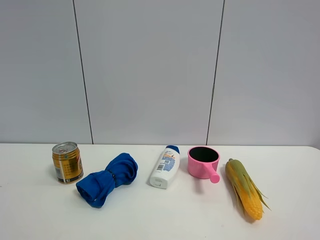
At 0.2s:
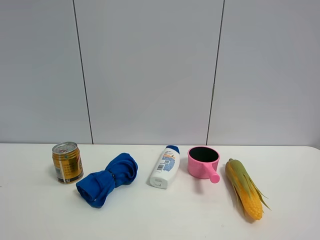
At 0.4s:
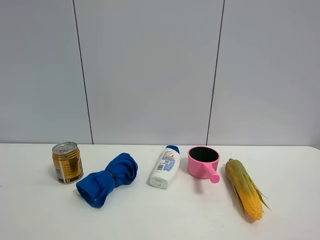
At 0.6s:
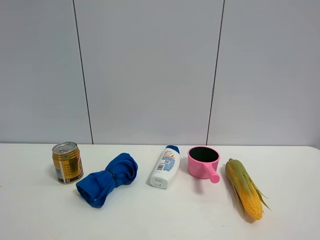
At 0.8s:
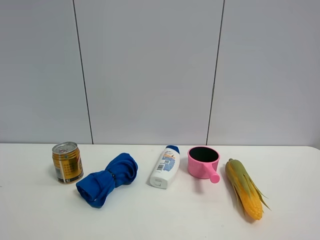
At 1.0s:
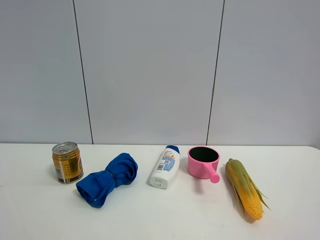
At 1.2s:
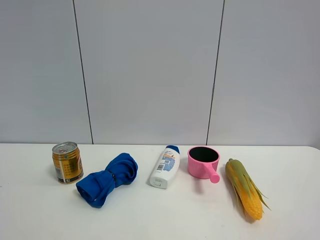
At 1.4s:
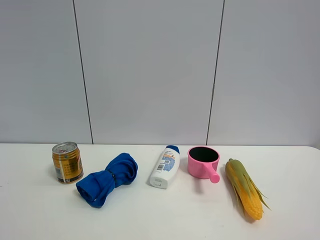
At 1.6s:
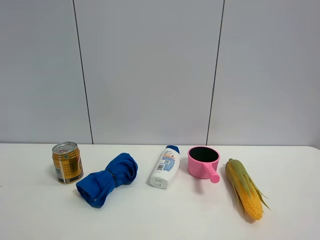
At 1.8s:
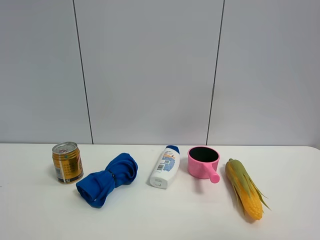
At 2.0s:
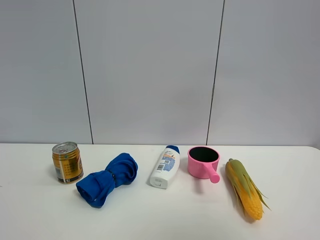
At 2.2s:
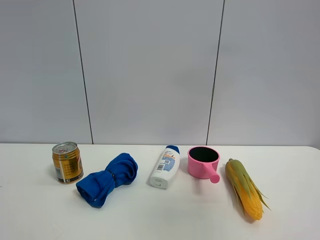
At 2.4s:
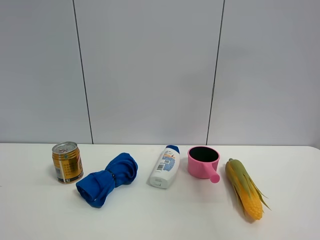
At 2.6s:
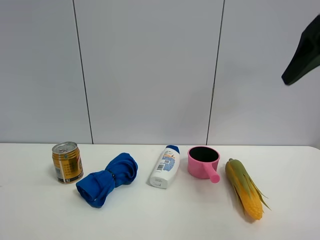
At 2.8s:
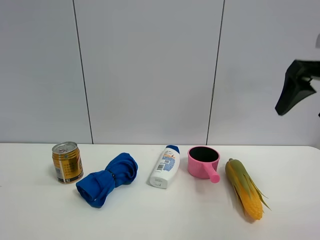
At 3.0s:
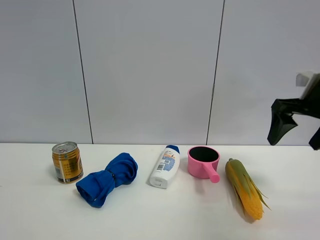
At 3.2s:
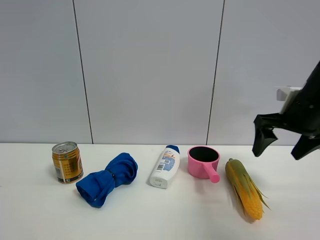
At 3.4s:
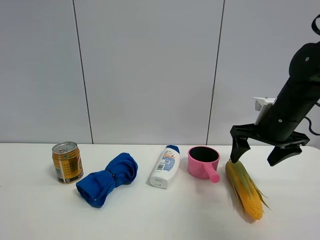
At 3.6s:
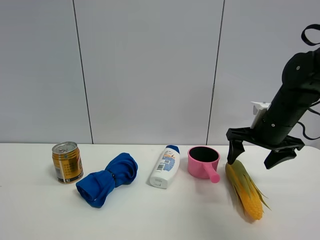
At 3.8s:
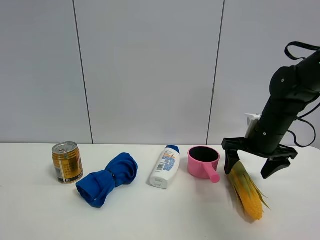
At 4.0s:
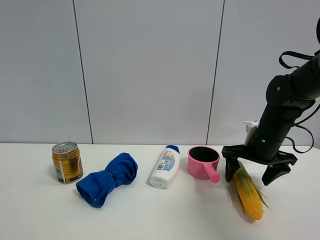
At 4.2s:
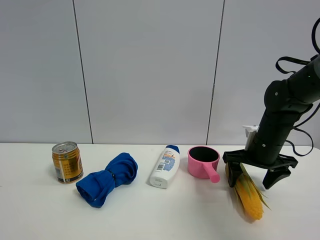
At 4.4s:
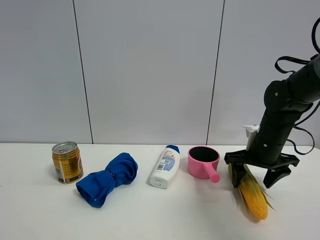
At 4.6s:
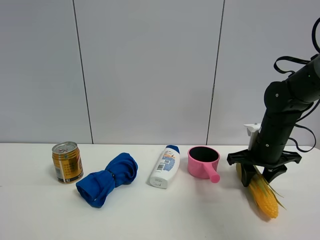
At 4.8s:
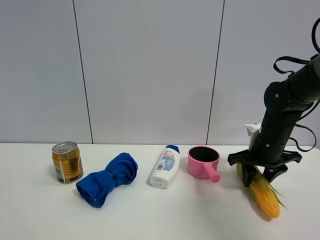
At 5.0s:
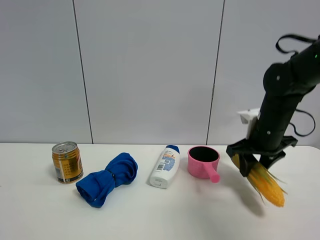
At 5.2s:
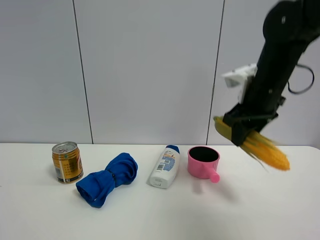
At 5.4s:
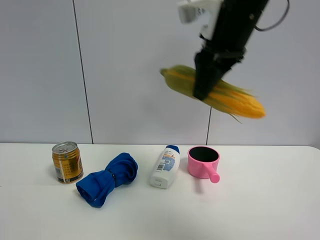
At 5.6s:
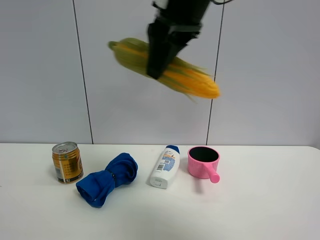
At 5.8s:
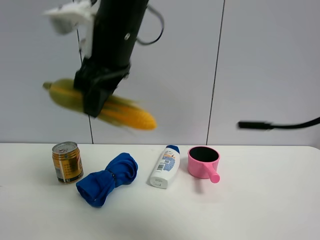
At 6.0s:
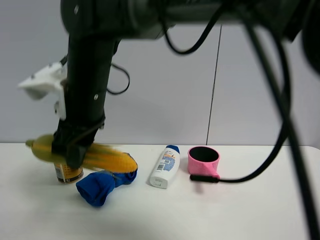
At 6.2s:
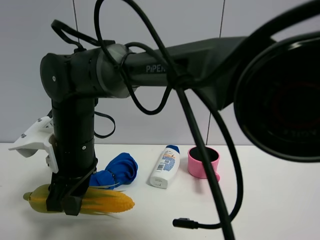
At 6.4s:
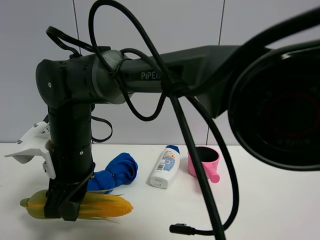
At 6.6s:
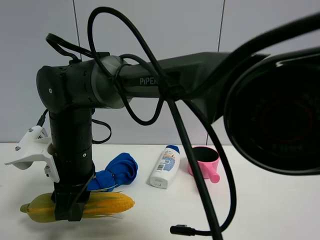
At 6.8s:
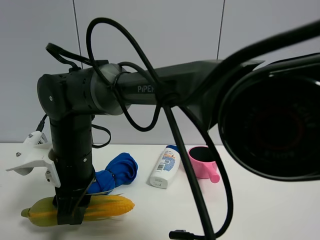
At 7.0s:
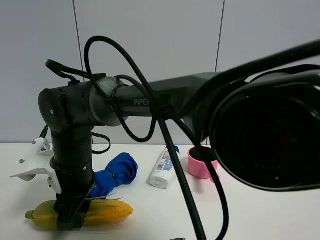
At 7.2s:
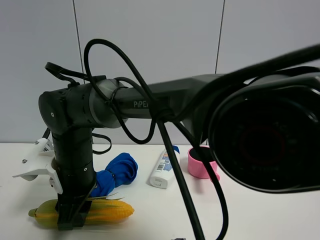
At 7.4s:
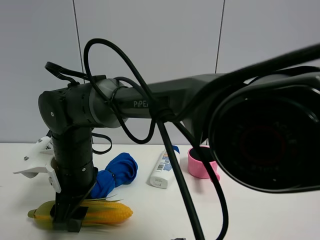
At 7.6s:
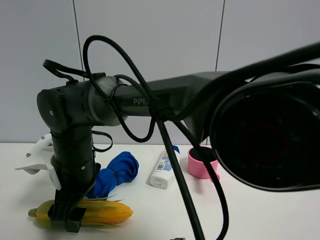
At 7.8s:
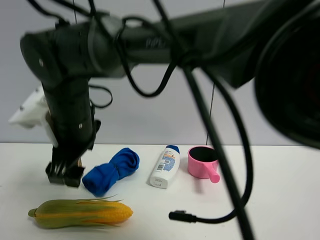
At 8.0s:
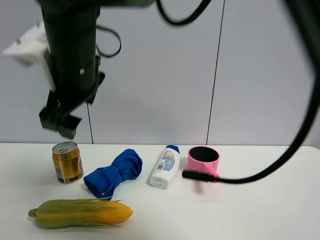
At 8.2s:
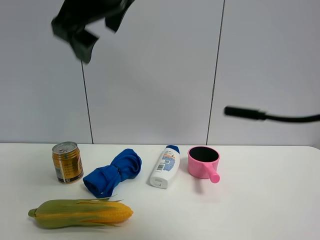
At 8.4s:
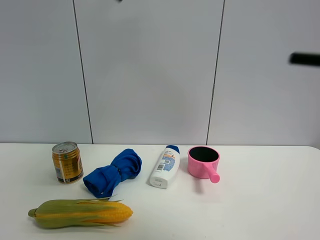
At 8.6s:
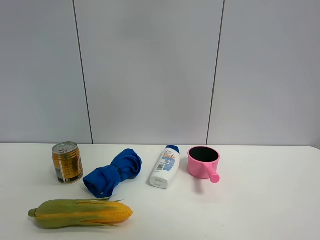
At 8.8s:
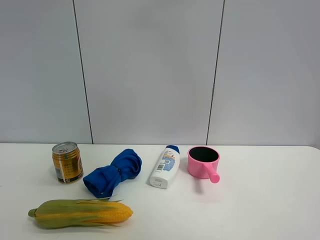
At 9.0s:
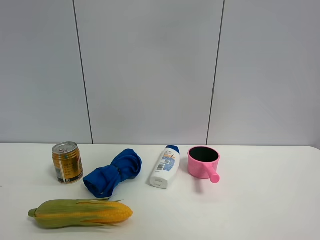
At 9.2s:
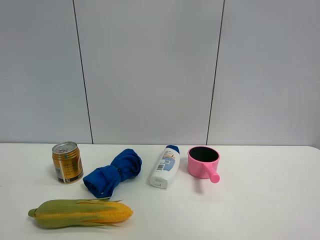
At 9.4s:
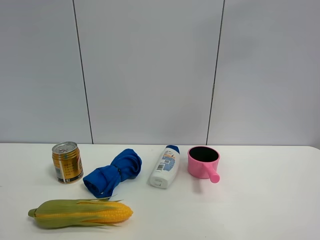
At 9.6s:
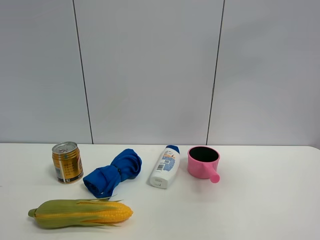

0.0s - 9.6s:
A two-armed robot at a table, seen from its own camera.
Task of the whole recording: the gripper move the object.
Step, 0.0s - 4.6s: Grasp the corn with the right gripper.
Step, 4.8s - 7.6s: Place the corn on the table with the right gripper.
1.6s - 3.2s: The right gripper goes some 35 cm forward.
3.2s - 4.8s: The right gripper goes approximately 10 cm downward, and closes.
4.8s - 6.4s: The right gripper shifts about 40 cm to the left.
6.4s - 8.0s: The right gripper shifts some 10 cm upward, and opens up.
8.0s - 9.6s: The right gripper travels to the right and upward by about 50 cm.

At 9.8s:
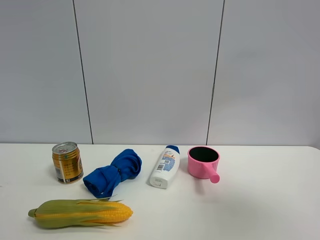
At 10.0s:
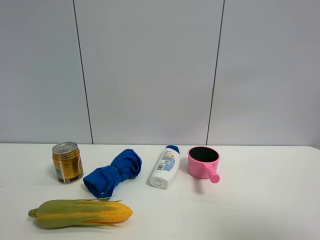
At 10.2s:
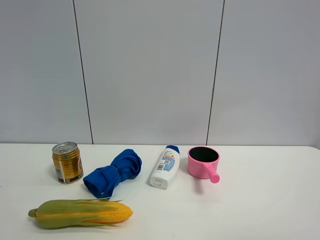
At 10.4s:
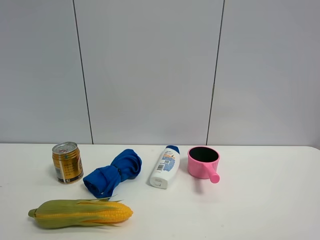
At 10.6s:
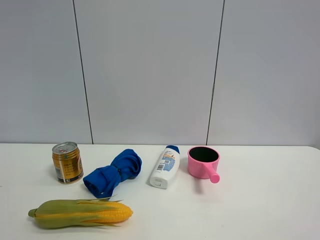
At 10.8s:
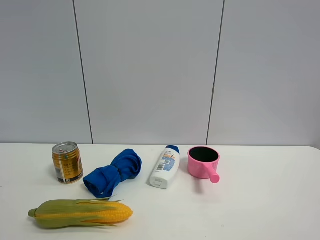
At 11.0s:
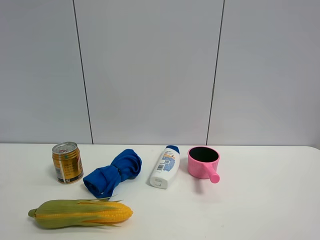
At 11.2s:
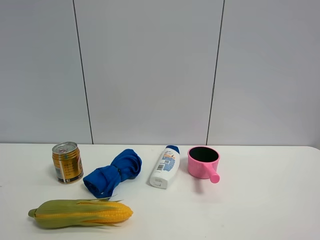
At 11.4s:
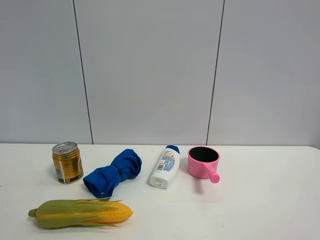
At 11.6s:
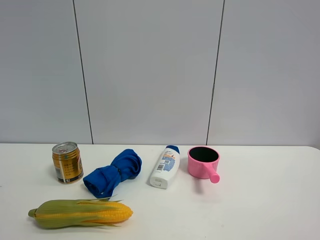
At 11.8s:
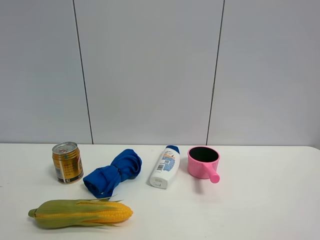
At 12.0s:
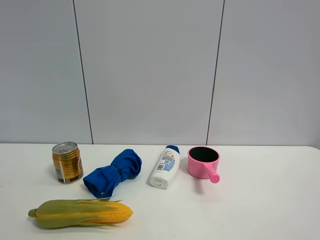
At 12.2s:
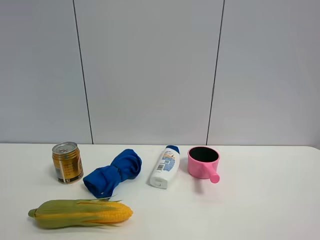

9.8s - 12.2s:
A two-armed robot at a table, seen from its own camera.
Task of the whole recording: the gripper move the object.
9.8s - 11.0s: The right gripper travels downward and backward by roughly 20 cm.
11.0s - 12.2s: Both grippers stay about where they are.

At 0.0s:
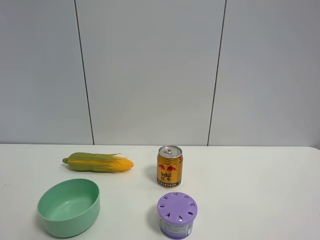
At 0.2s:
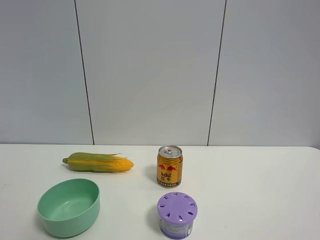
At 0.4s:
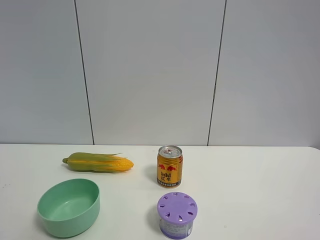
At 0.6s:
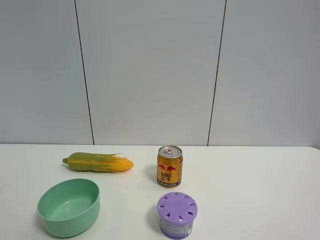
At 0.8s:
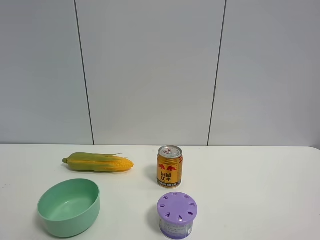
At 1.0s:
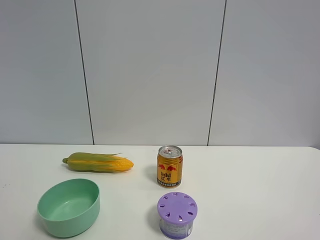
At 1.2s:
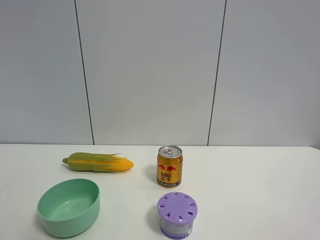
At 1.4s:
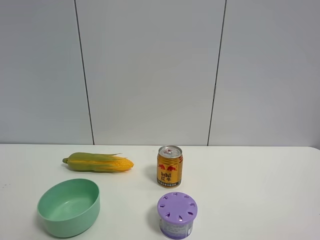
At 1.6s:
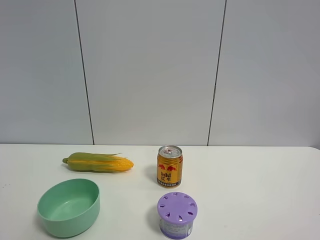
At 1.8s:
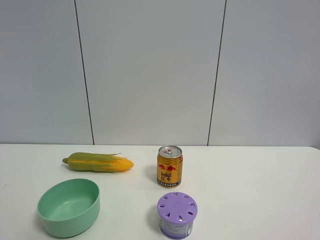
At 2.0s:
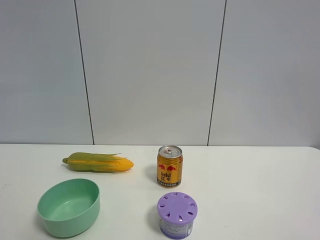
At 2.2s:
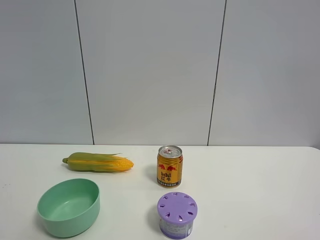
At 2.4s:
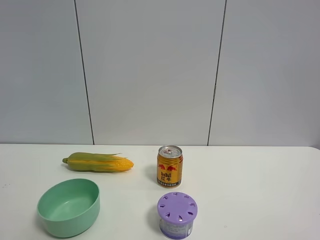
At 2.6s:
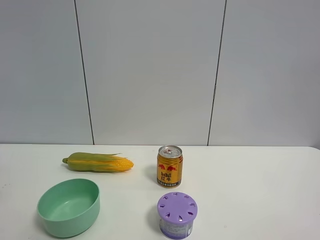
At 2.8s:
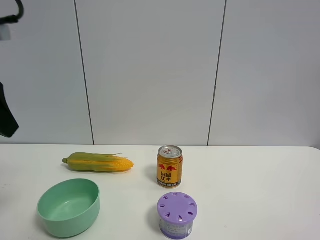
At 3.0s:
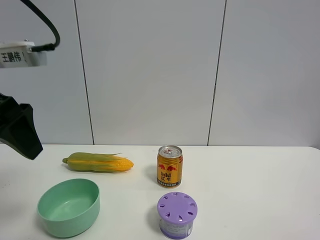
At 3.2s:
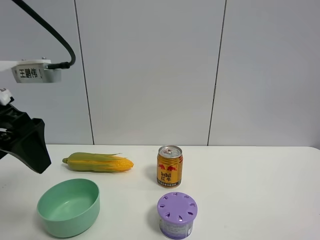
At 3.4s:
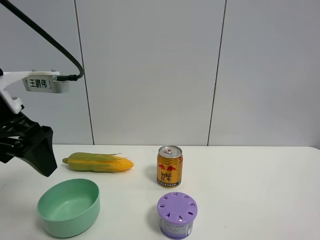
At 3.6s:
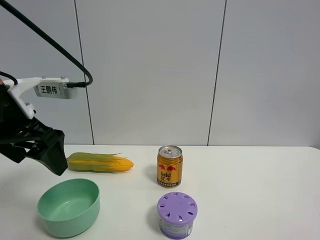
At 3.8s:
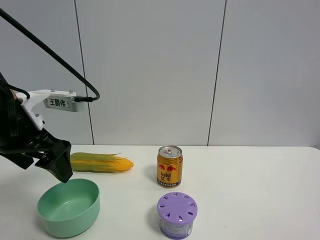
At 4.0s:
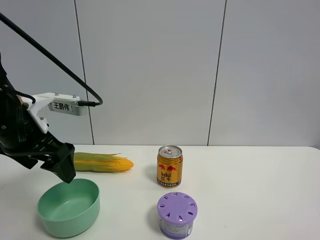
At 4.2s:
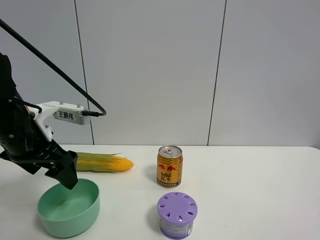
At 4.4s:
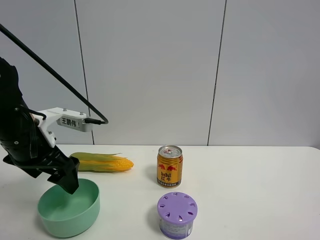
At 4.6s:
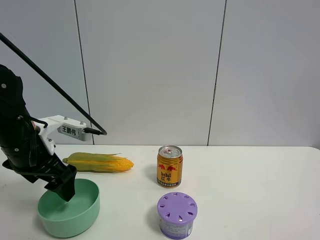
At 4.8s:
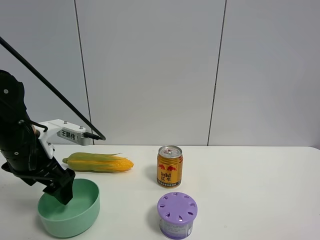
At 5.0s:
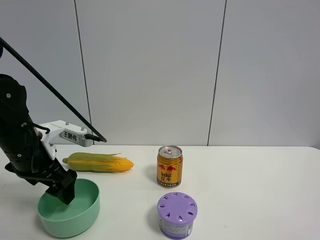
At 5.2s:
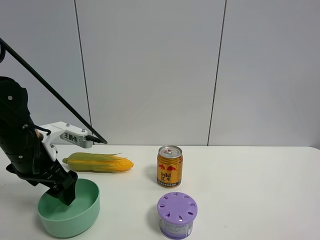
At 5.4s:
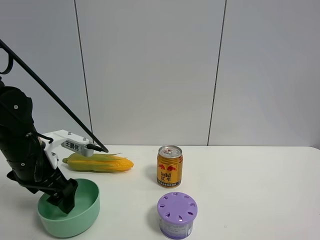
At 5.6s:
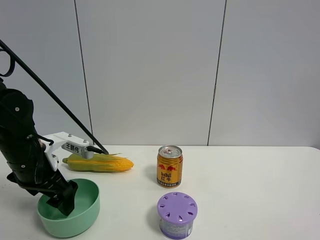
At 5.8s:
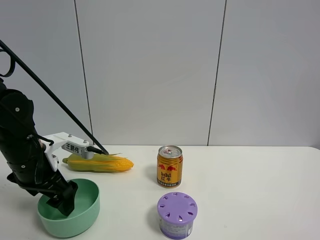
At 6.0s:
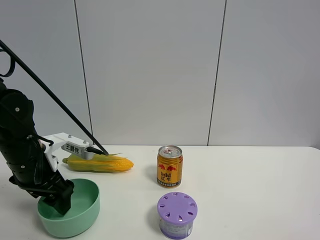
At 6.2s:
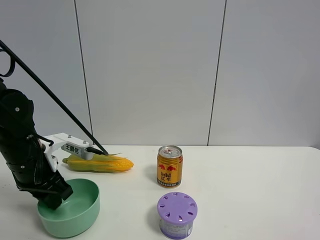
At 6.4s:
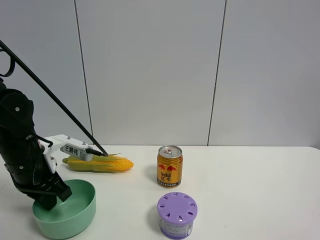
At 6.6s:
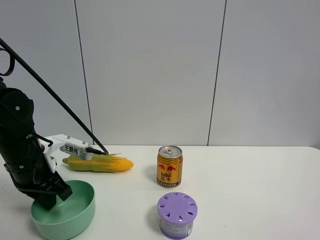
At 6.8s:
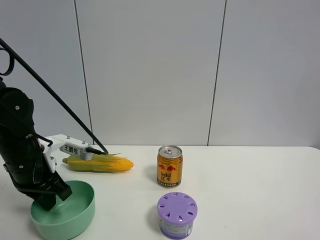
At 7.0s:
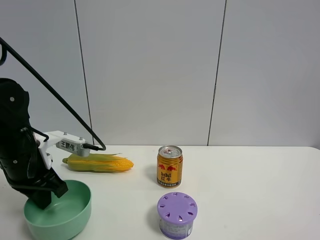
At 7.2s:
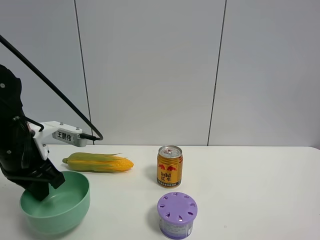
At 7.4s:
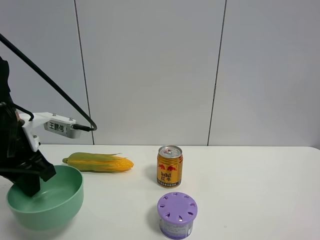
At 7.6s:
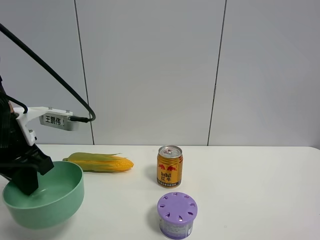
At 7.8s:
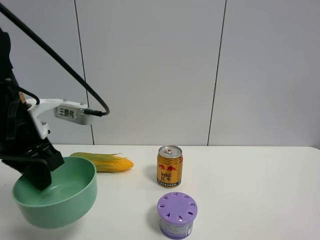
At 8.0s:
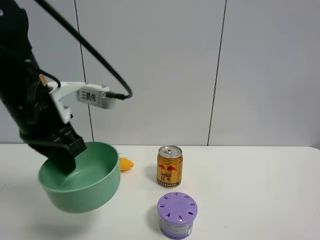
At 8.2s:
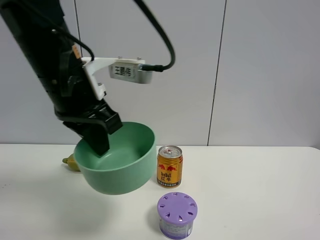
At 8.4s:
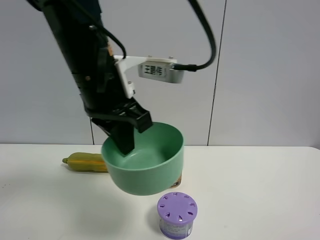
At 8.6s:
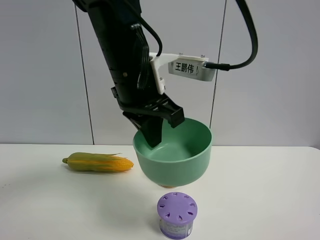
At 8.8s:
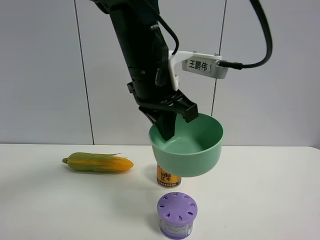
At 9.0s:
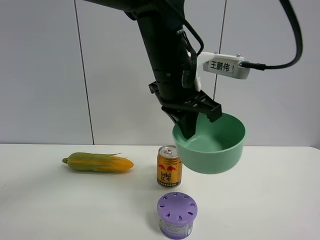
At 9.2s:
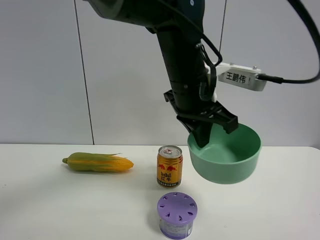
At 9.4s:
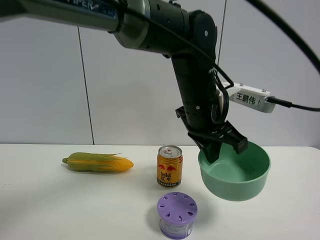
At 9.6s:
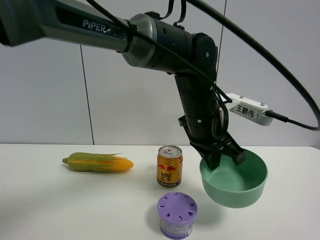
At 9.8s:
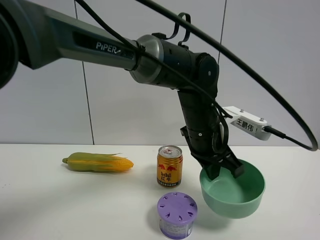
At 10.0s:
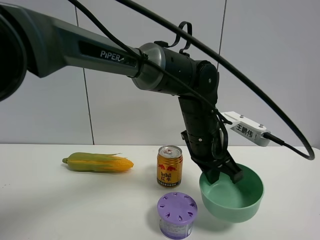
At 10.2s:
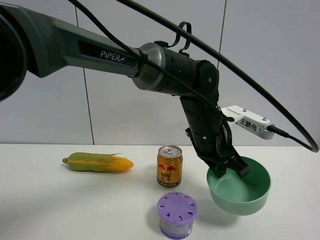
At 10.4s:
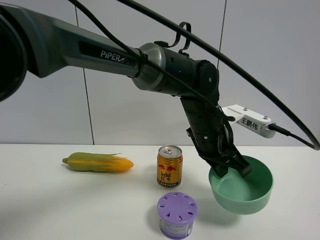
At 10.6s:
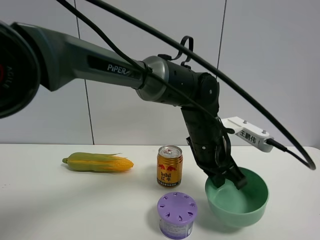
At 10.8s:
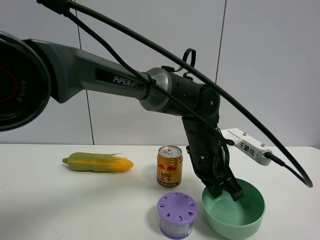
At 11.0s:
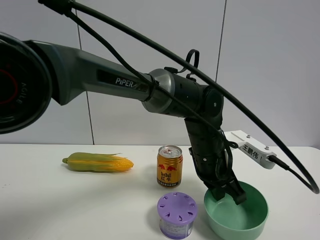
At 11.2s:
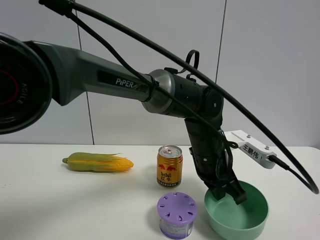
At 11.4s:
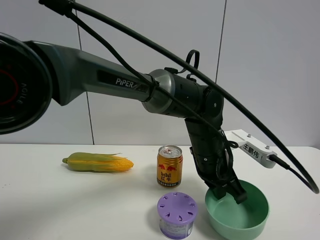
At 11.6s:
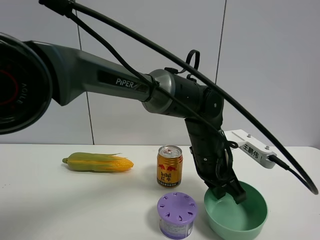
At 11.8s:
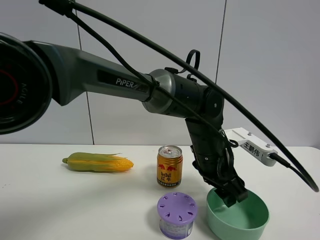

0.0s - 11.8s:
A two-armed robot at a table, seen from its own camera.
Task of the whole recording: the gripper move the object.
Step, 0.0s - 6.4s: Grasp the green bowl with the left gripper.
0.0s - 1.4s: Both grippers stay put.
1.4s - 3.0s: The left gripper goes roughly 25 cm forward.
3.0s - 4.4s: The left gripper travels downward and forward by approximately 15 cm.
4.4s - 6.0s: The left gripper shifts by some 5 cm.
6.0s - 7.4s: The left gripper moves upward, some 5 cm, and closes up.
7.4s - 8.8s: The left gripper goes approximately 25 cm to the right.
8.8s - 10.4s: The left gripper shifts roughly 15 cm downward and to the right.
10.4s - 11.8s: The left gripper opens its fingers.
